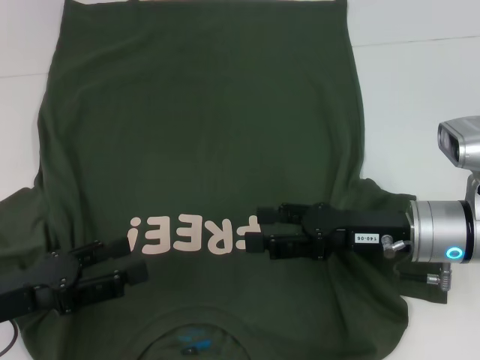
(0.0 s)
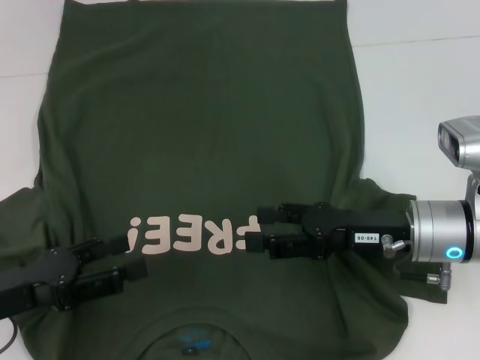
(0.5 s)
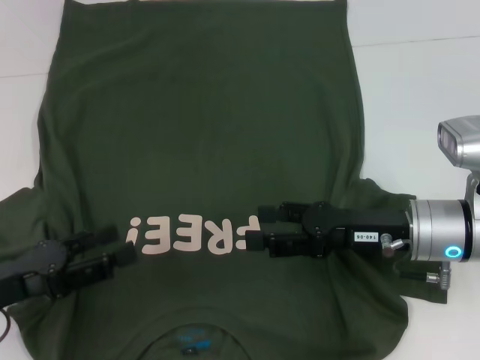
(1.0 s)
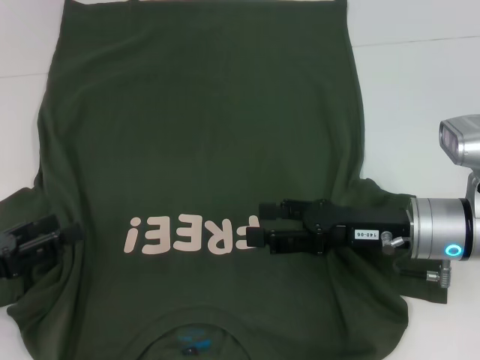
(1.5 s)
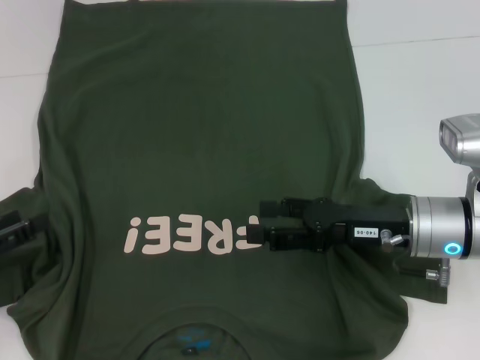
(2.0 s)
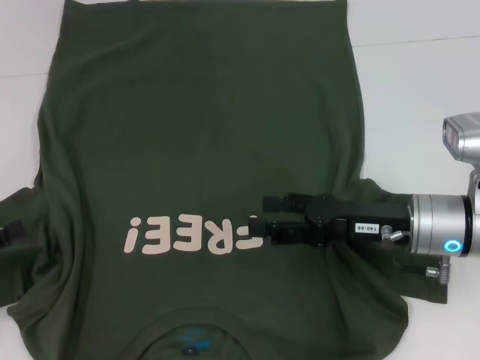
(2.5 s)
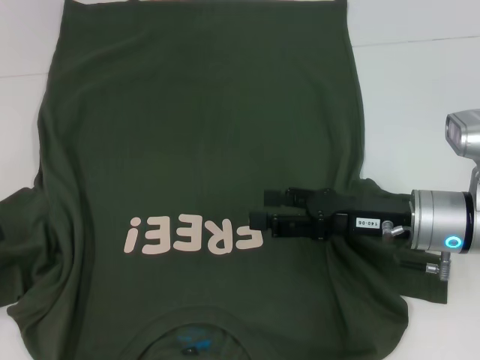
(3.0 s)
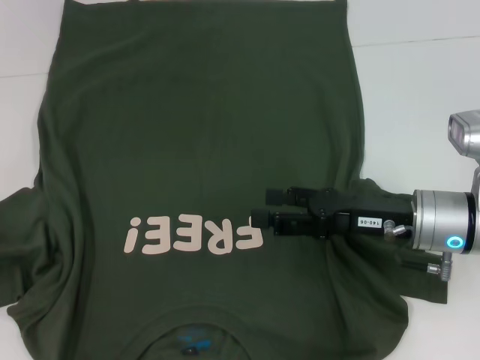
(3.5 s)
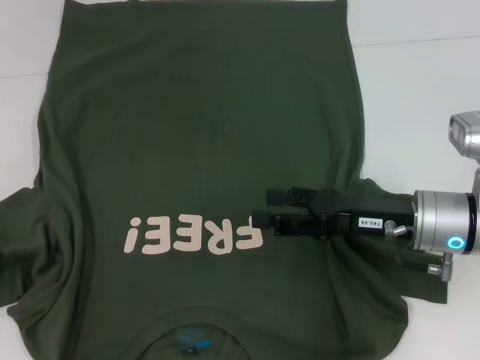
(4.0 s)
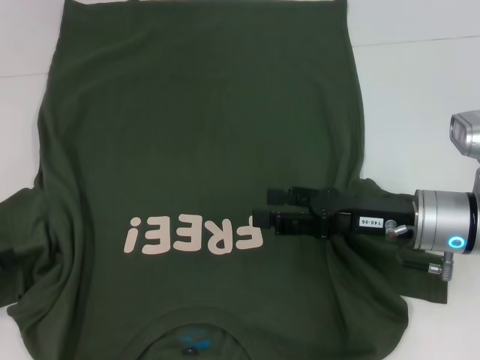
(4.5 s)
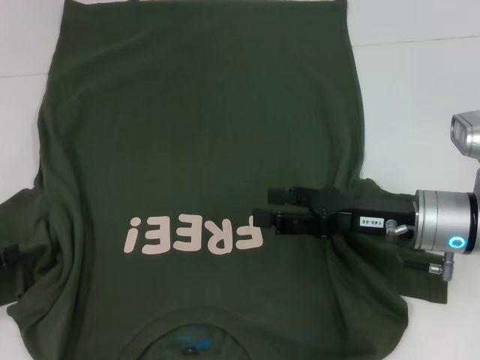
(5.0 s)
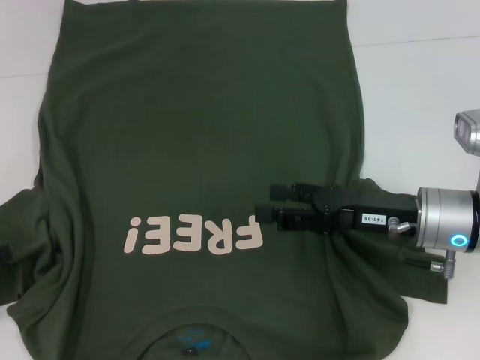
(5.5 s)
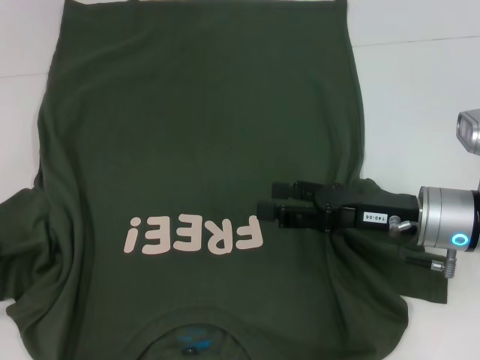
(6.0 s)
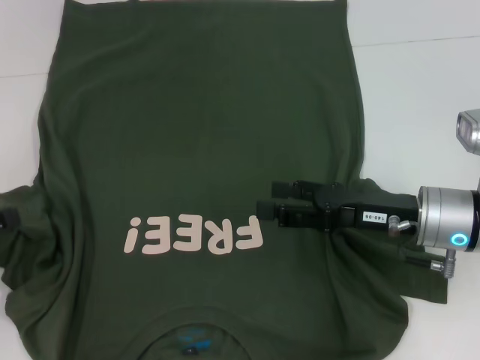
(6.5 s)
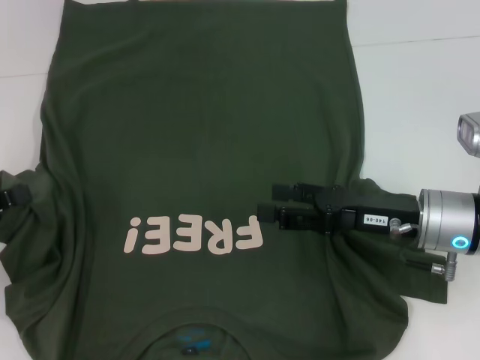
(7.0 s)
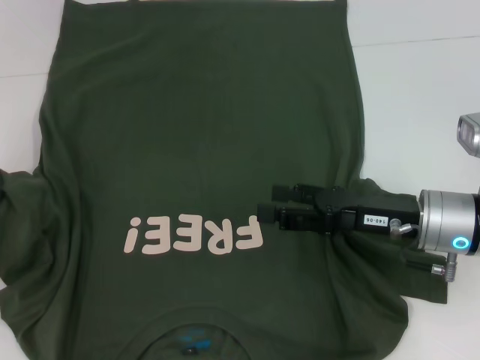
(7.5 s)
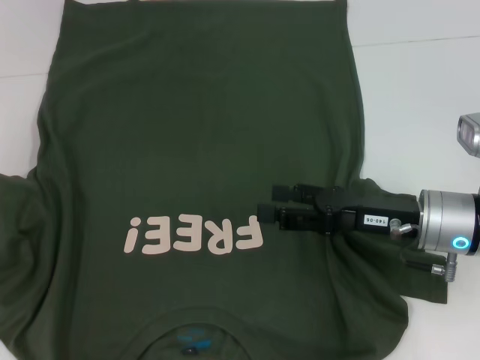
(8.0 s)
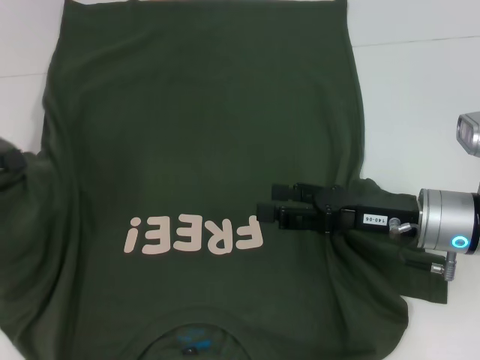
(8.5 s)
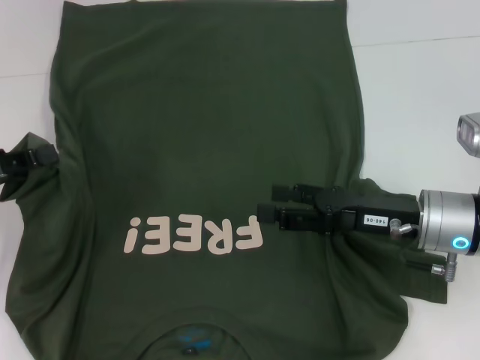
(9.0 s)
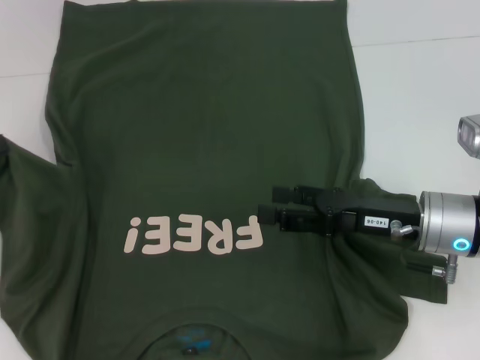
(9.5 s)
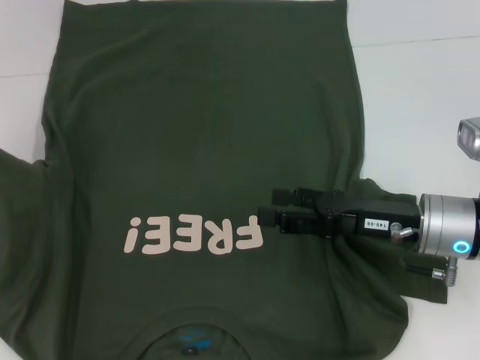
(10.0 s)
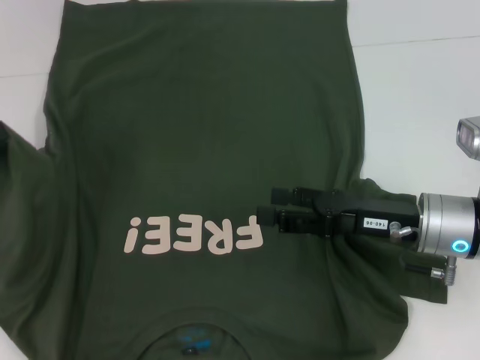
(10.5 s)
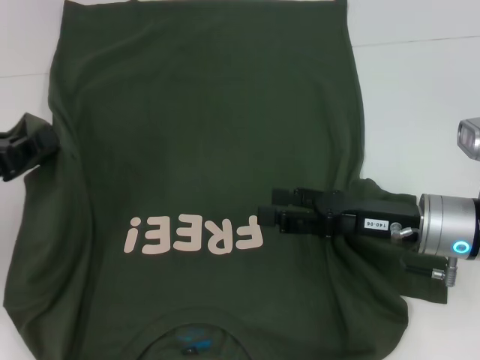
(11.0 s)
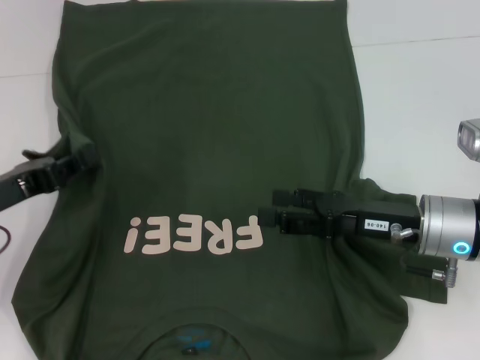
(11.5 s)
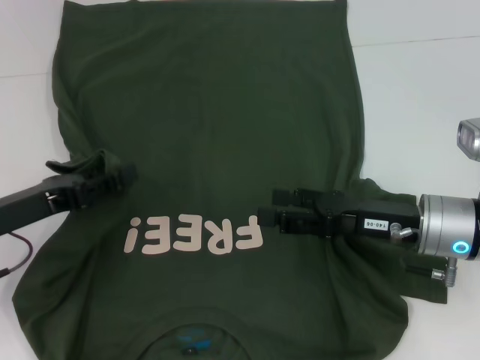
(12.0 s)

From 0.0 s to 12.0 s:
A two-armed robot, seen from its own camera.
From 0.0 s to 2.0 s: The left gripper shifts approximately 5 cm to the left.
From 2.0 s to 4.0 s: There are only small adjustments of the grippers.
From 4.0 s to 6.0 s: The left gripper closes.
From 6.0 s to 8.0 s: The left gripper travels upward by about 5 cm.
From 8.0 s to 10.0 s: The grippers move only a little.
From 10.0 s to 12.0 s: The left gripper goes about 10 cm to the right and downward.

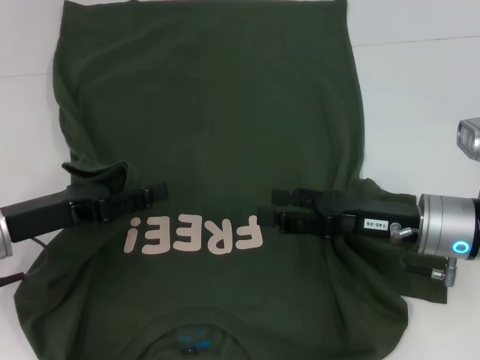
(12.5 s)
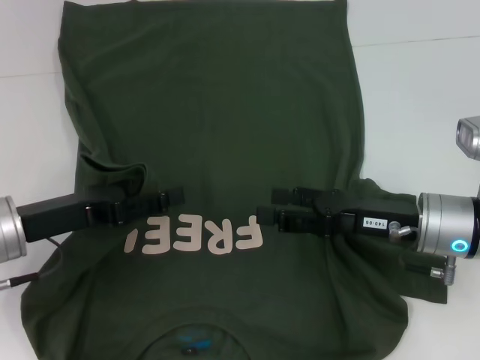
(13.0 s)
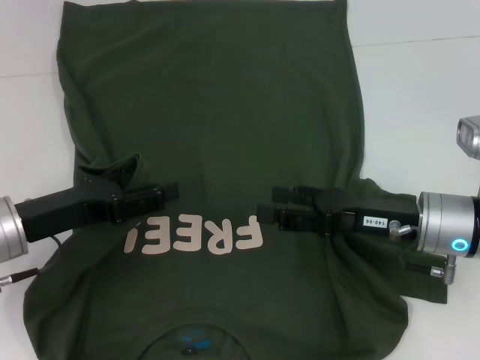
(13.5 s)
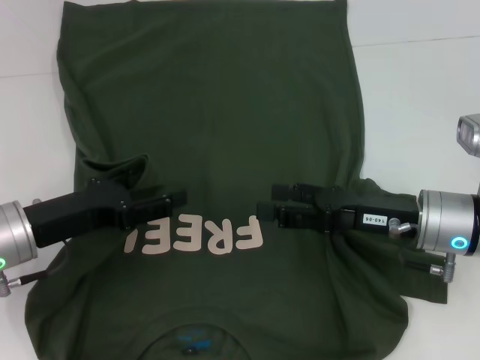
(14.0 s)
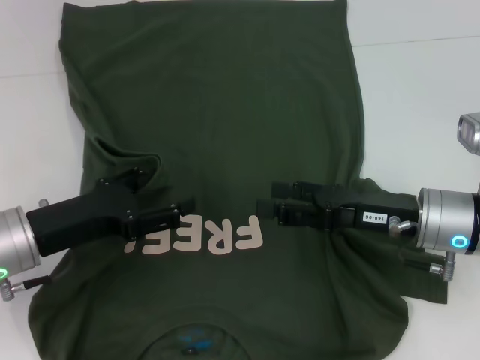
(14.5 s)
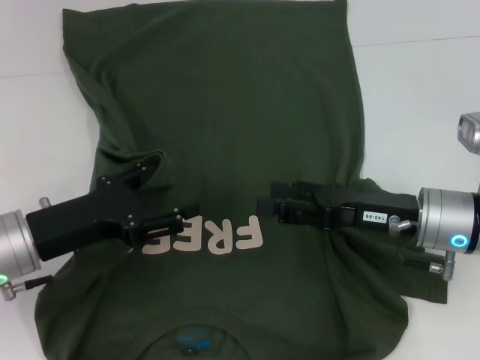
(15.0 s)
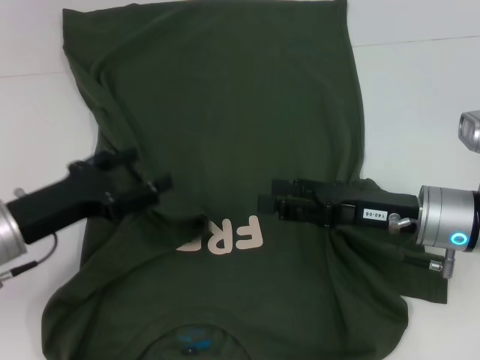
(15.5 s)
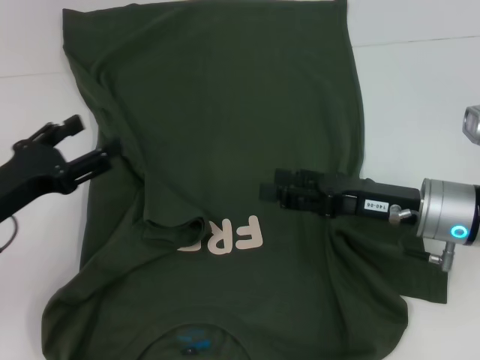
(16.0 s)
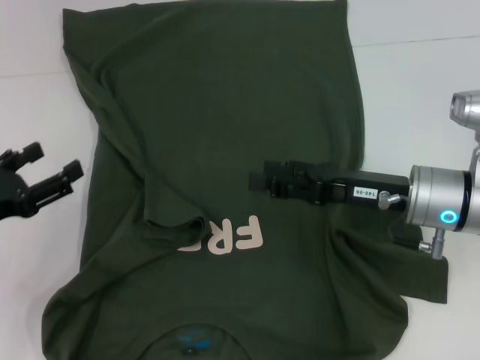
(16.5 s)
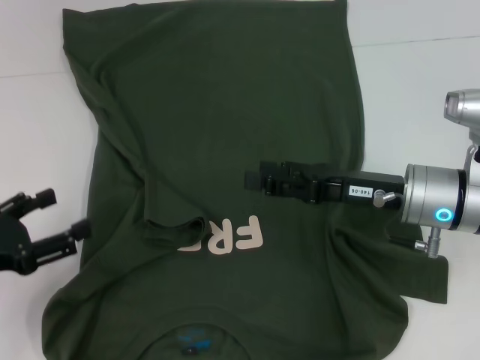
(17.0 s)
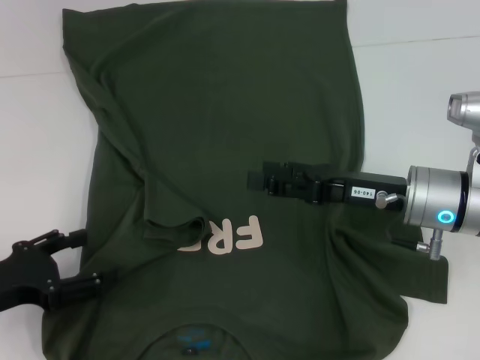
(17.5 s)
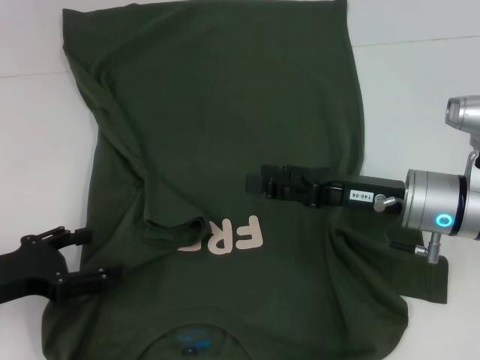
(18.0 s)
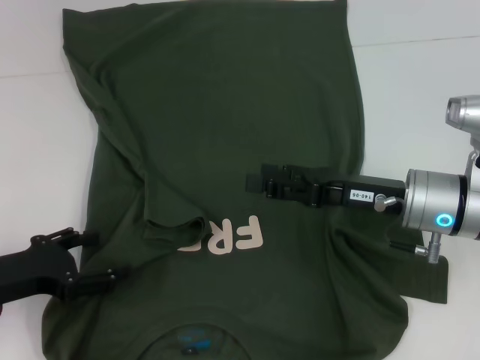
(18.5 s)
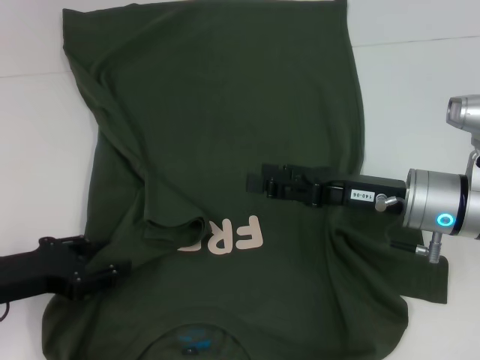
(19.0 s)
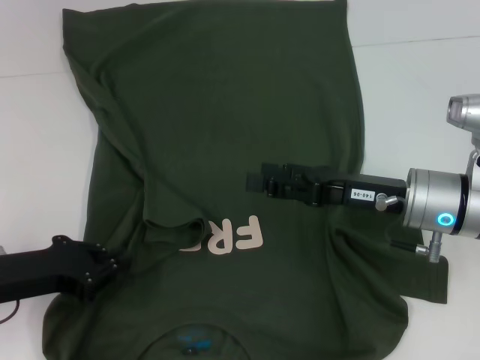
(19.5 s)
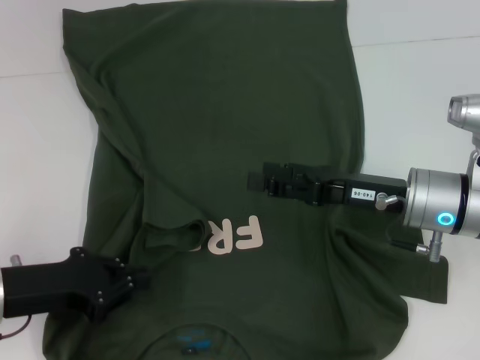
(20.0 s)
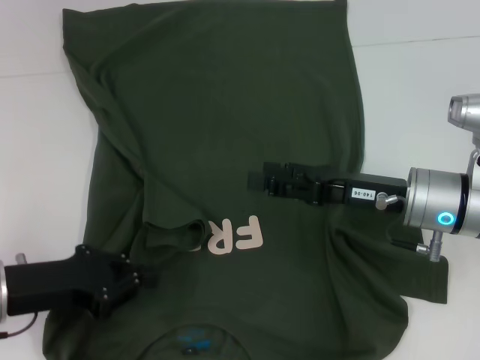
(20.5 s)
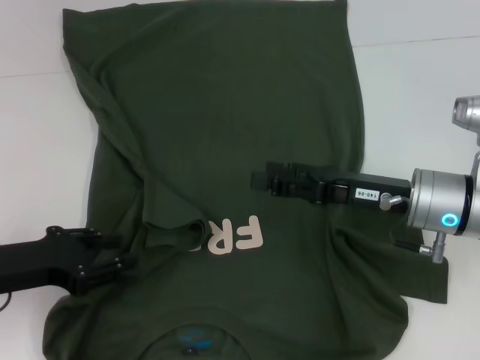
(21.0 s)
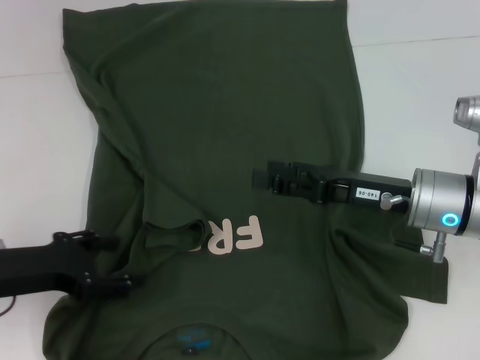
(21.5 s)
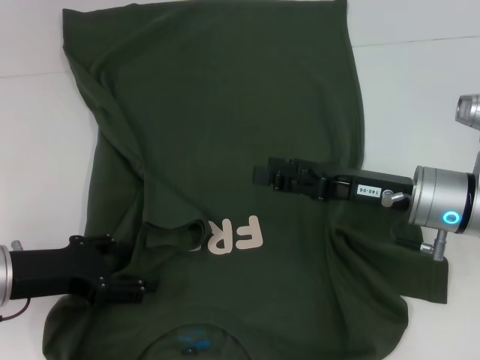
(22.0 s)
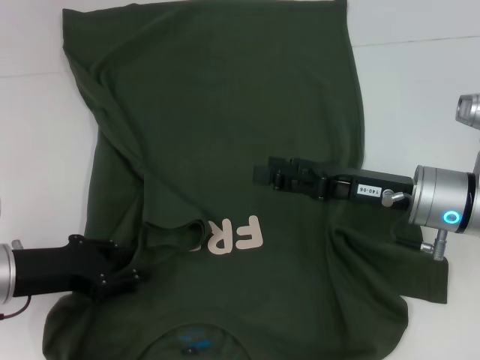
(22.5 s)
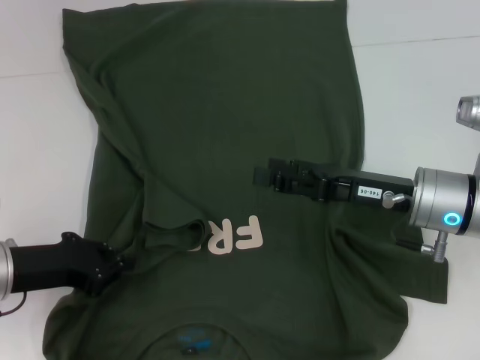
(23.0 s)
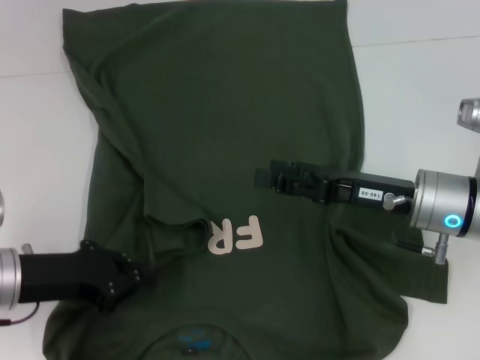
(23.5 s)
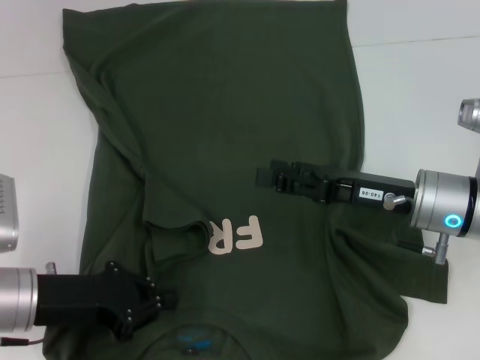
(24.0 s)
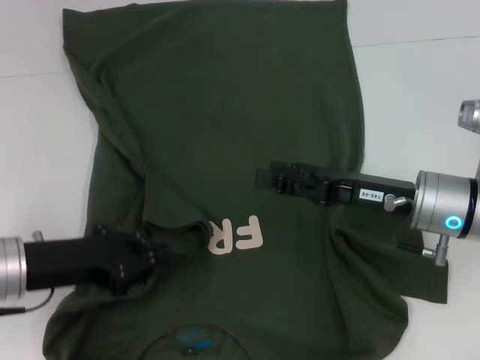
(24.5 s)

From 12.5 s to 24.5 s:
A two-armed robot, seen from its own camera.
Step, from 12.5 s to 16.5 s: Fold the bottom left sleeve with your left hand.
From 12.5 s to 14.5 s: The grippers stay close to where they were, moving slightly.
From 14.5 s to 16.5 s: The left gripper travels to the left by about 10 cm.
From 18.5 s to 20.5 s: The left gripper closes its fingers.
From 20.5 s to 22.5 s: The left gripper opens its fingers.
From 22.5 s to 24.5 s: The left gripper closes its fingers.

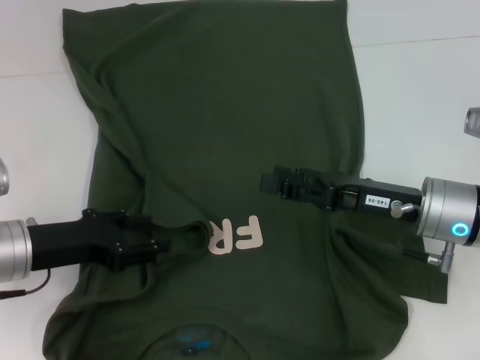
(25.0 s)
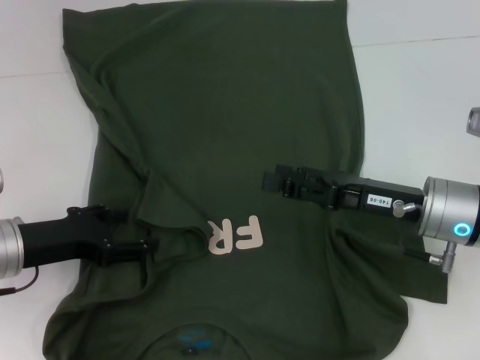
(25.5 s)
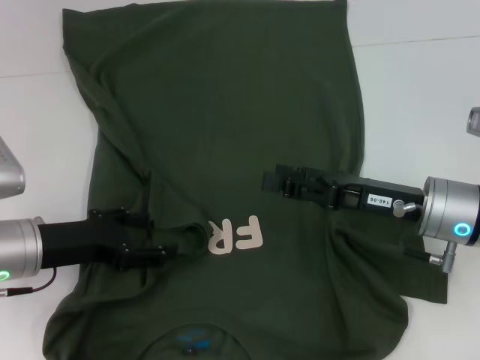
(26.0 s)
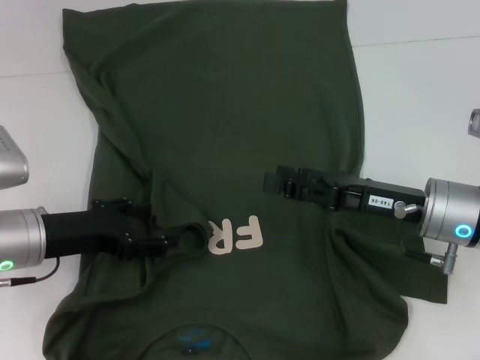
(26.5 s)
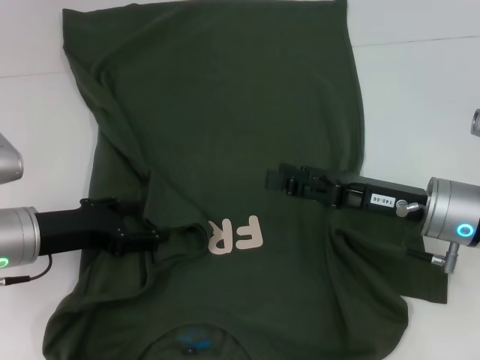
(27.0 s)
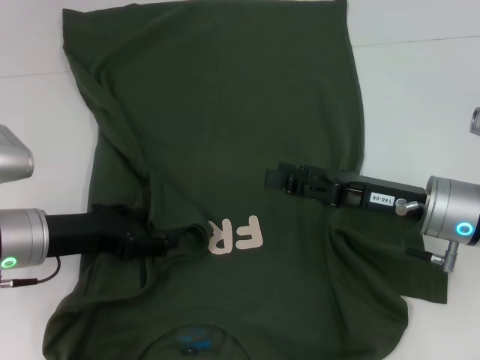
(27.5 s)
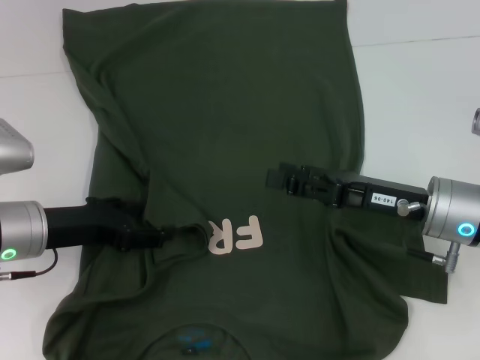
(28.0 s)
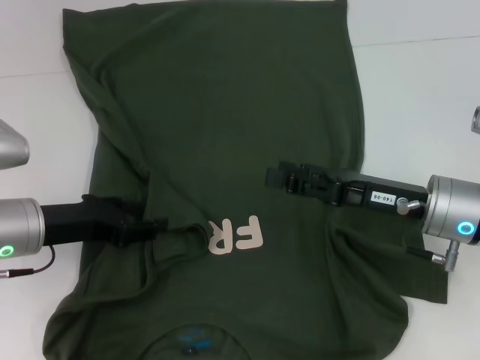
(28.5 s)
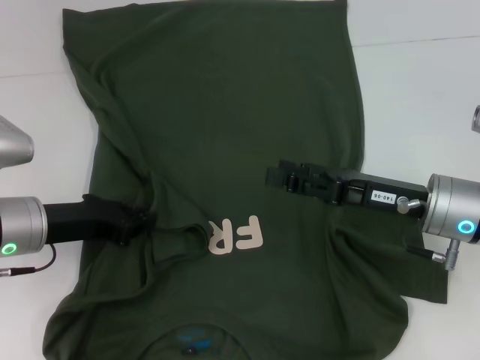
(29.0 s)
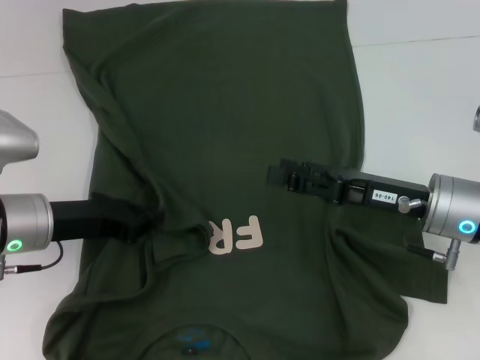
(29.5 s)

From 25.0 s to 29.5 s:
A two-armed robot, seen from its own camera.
From 25.0 s to 27.0 s: The left gripper opens its fingers.
From 27.0 s to 29.5 s: The left gripper closes its fingers.
